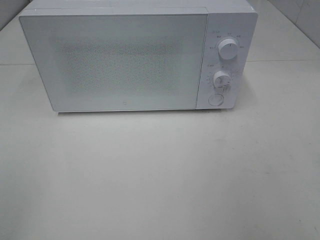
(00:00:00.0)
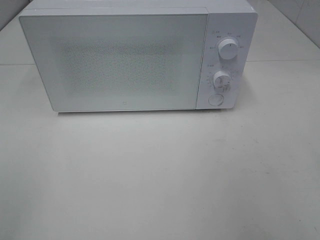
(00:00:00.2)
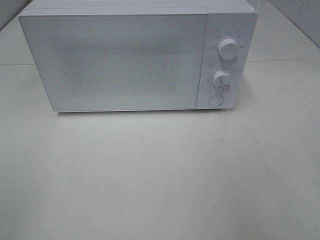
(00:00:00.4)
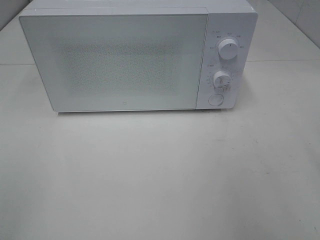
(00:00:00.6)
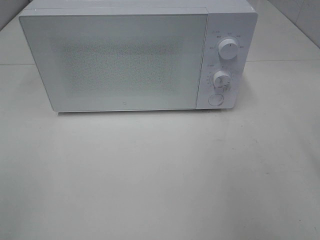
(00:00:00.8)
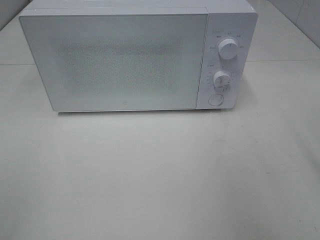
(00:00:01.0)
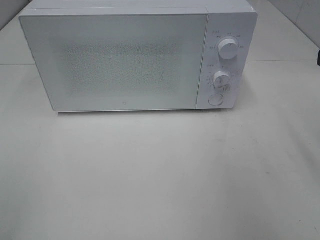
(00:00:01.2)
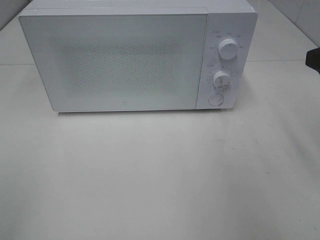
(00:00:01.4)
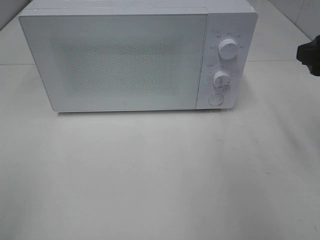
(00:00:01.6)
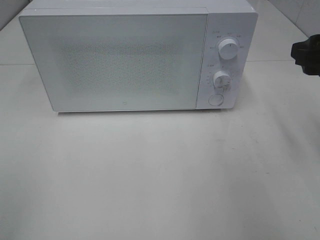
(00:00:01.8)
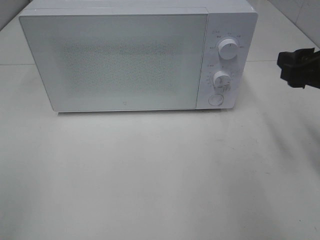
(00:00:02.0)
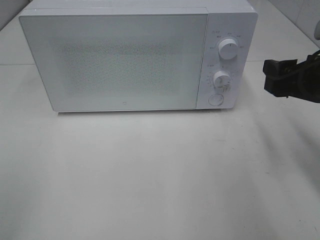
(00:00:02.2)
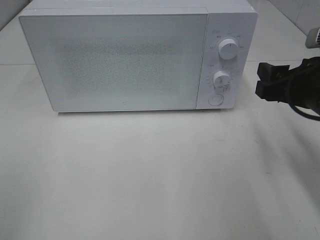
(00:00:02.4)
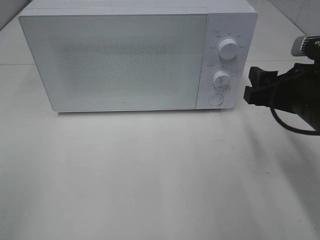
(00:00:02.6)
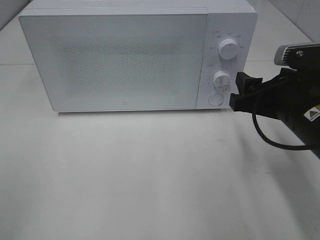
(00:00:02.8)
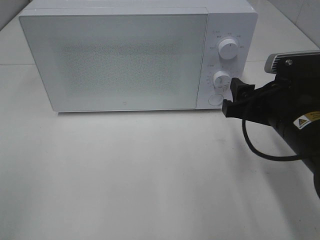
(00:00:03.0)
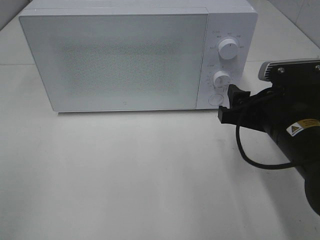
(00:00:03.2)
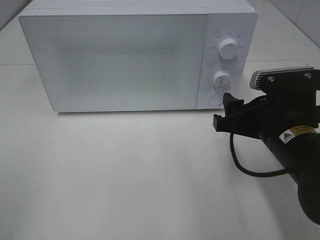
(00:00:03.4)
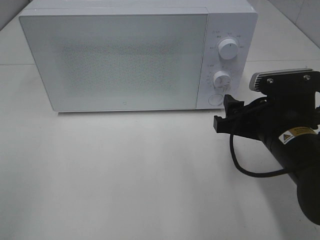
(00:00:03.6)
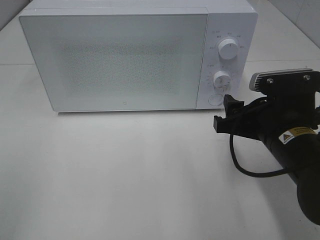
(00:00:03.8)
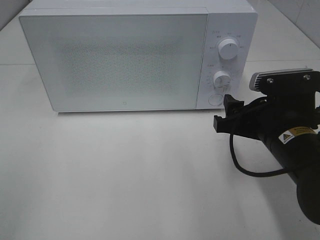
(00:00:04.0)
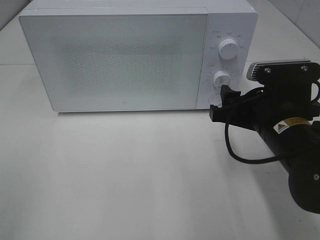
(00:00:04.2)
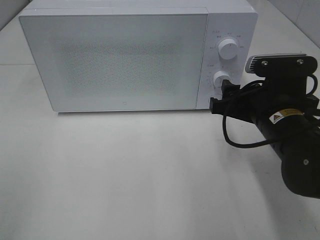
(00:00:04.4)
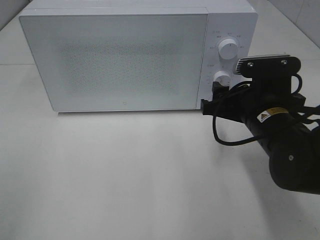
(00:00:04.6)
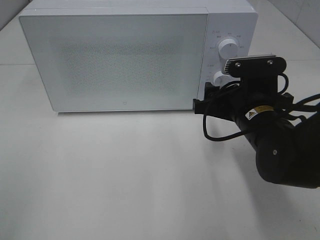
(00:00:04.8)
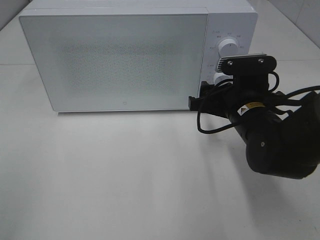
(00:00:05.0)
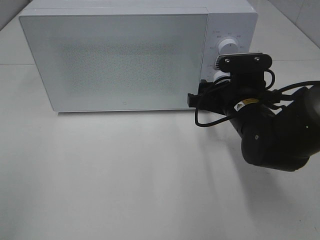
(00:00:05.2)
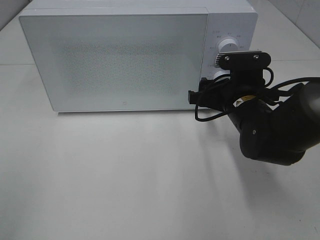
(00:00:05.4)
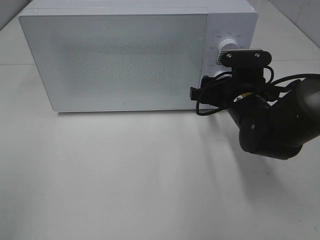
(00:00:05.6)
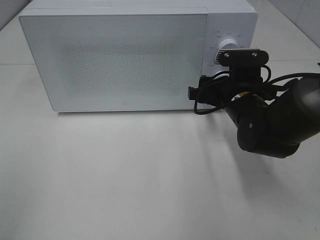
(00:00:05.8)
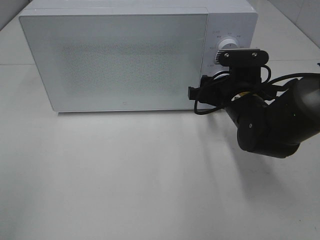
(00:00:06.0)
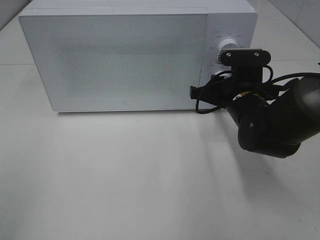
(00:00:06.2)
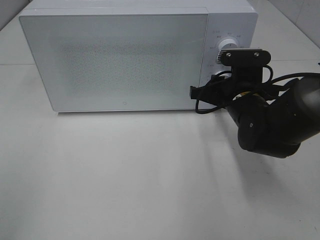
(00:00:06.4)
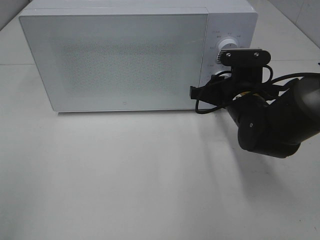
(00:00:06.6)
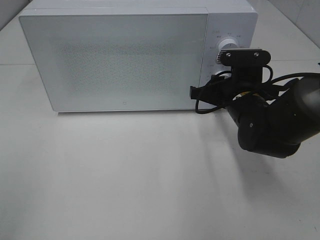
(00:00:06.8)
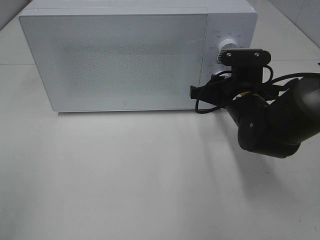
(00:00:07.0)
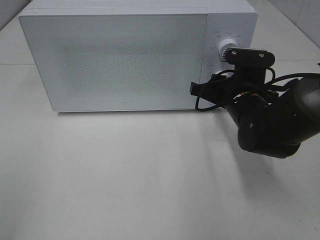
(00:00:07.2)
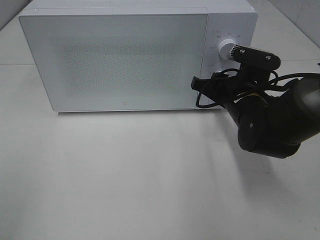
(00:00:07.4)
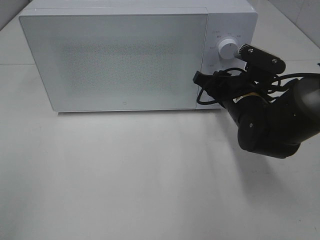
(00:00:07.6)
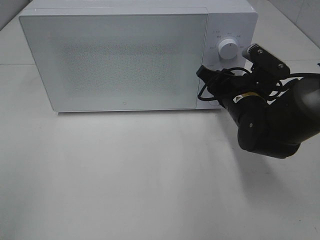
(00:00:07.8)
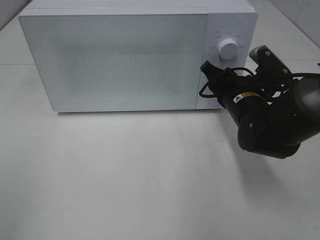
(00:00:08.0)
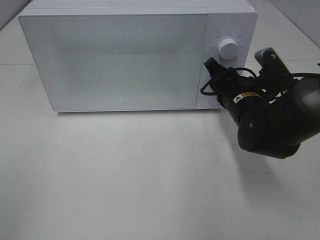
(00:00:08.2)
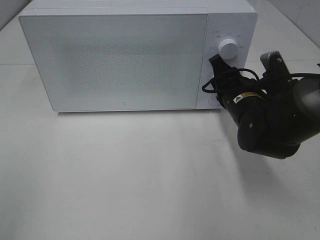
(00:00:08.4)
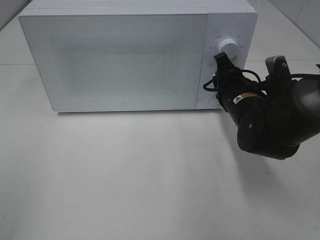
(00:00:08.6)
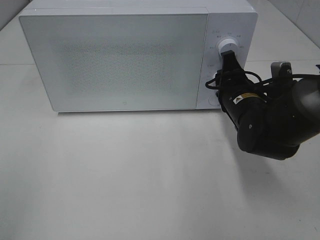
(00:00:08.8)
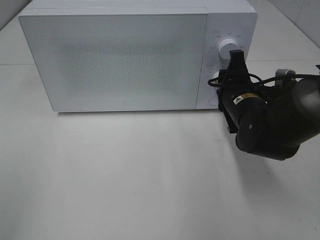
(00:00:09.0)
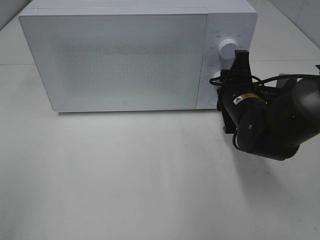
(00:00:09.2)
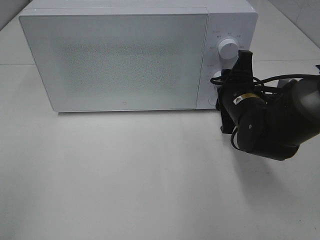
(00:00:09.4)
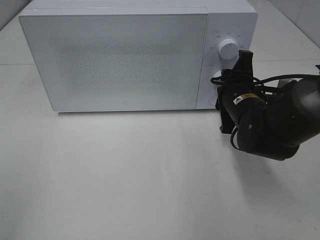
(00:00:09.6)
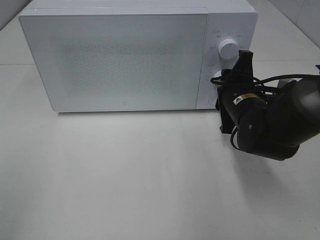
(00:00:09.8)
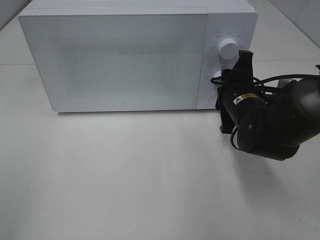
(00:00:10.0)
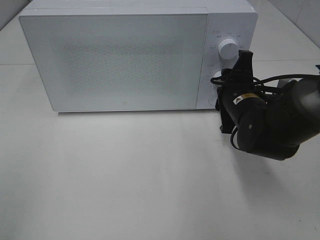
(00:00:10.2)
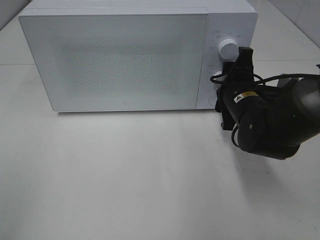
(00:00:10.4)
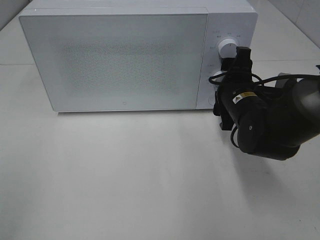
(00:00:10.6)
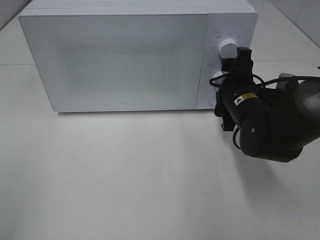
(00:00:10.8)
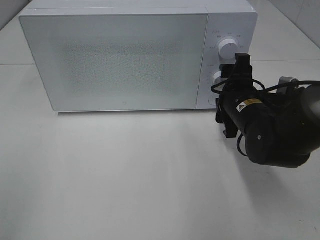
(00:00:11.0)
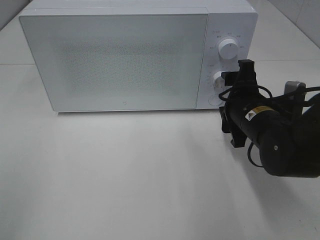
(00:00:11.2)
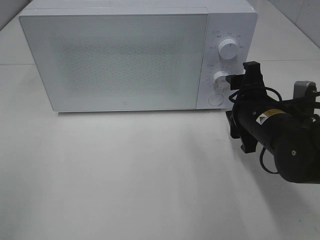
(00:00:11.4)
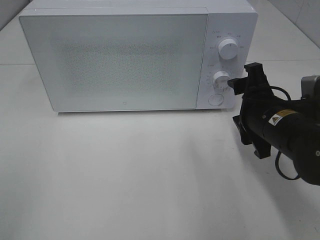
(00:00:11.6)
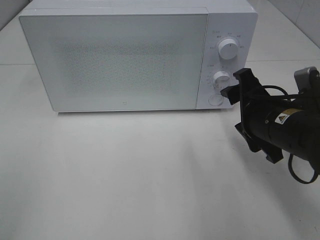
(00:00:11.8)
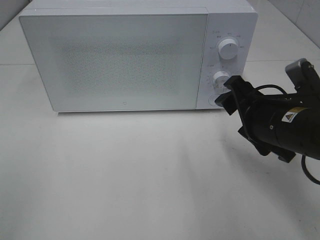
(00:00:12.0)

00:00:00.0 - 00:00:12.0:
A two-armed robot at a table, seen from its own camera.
Task of the whole recording: Heat Sandwich.
Step, 00:00:00.0 - 00:00:10.8: Right hand: twist timer button.
00:00:00.0 - 00:00:01.6: The right gripper moves forward, approximately 15 cm.
00:00:01.6 - 00:00:03.0: The right gripper moves downward and to the left, approximately 15 cm.
00:00:03.0 - 00:00:04.4: The grippers stay close to where they were, moving slightly.
00:00:04.4 - 00:00:06.0: The right gripper heads forward, covering approximately 10 cm.
00:00:09.0 - 00:00:10.4: The grippers move only a little.
00:00:10.4 - 00:00:12.0: The right gripper travels backward by about 10 cm.

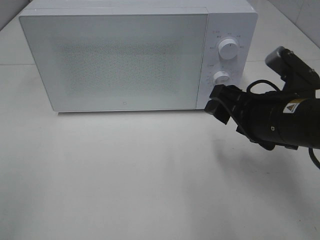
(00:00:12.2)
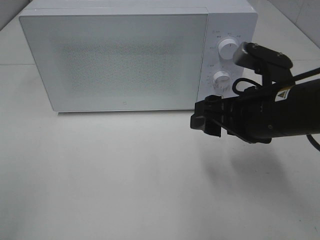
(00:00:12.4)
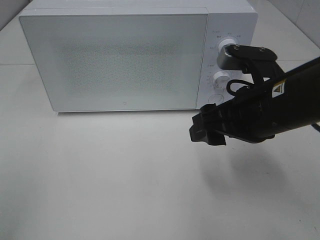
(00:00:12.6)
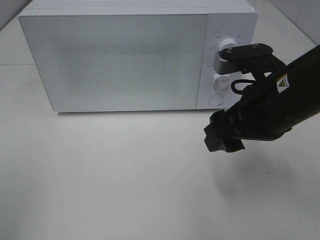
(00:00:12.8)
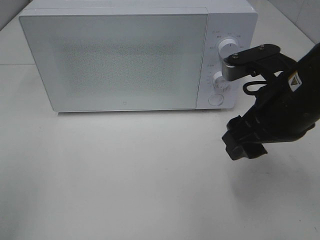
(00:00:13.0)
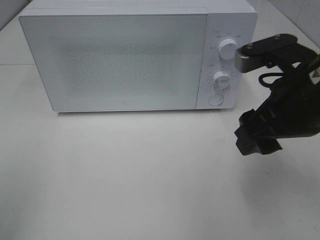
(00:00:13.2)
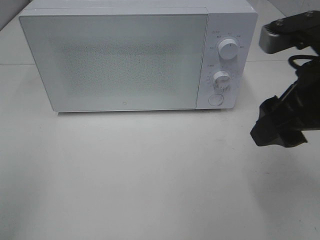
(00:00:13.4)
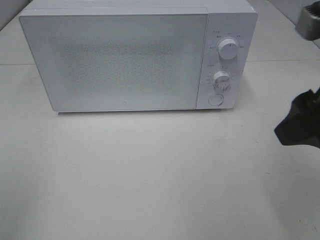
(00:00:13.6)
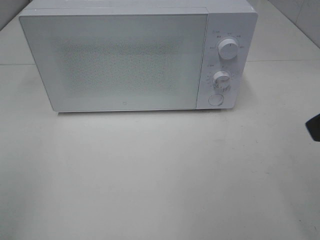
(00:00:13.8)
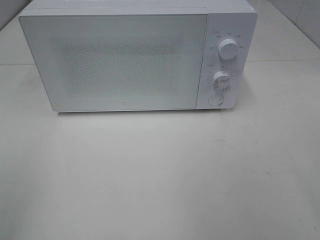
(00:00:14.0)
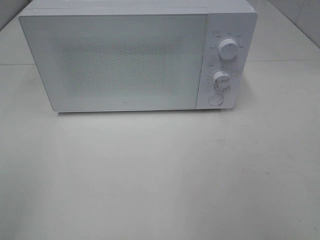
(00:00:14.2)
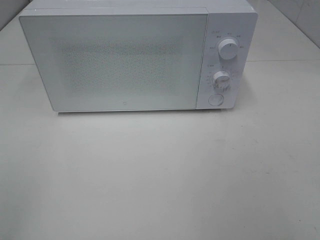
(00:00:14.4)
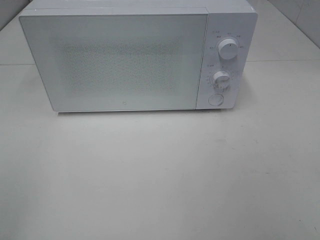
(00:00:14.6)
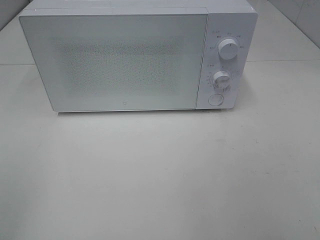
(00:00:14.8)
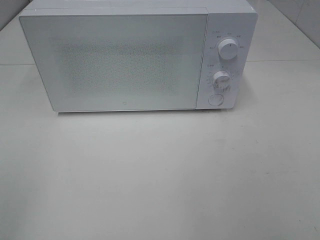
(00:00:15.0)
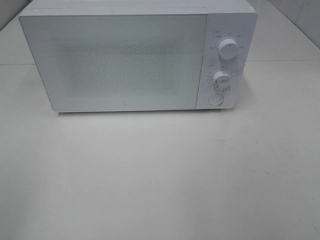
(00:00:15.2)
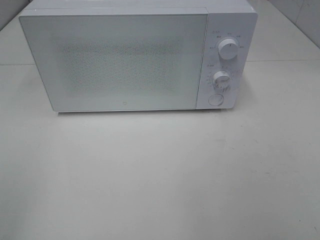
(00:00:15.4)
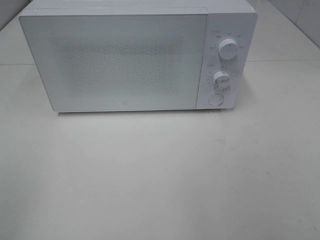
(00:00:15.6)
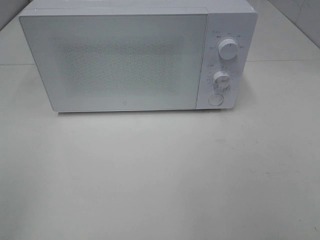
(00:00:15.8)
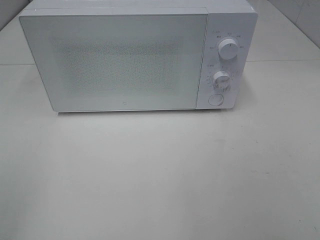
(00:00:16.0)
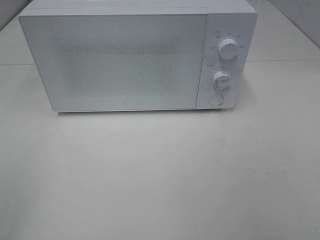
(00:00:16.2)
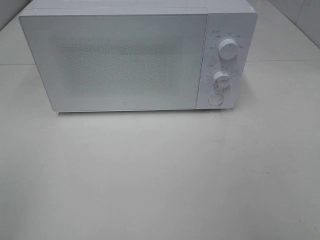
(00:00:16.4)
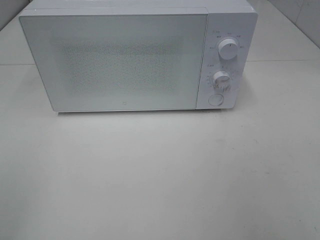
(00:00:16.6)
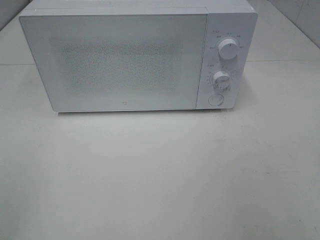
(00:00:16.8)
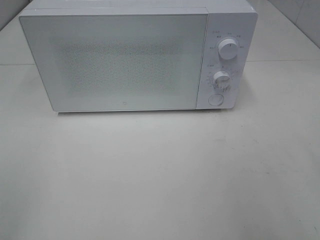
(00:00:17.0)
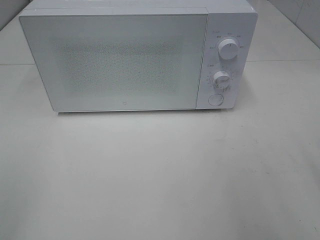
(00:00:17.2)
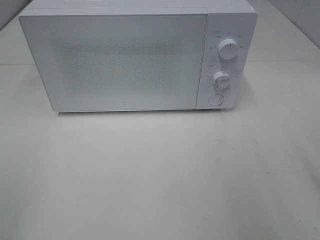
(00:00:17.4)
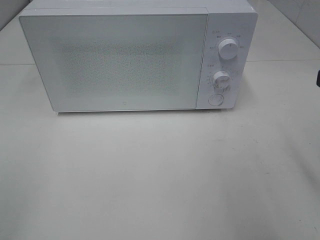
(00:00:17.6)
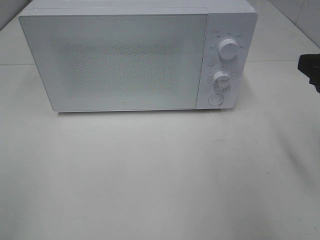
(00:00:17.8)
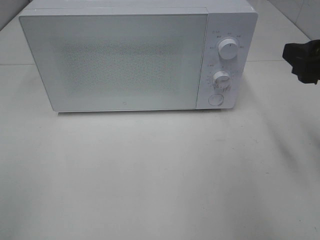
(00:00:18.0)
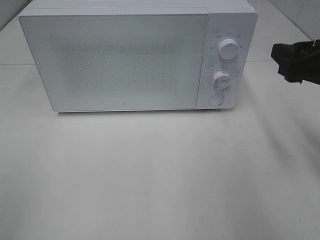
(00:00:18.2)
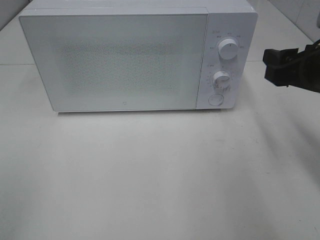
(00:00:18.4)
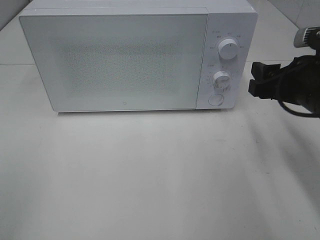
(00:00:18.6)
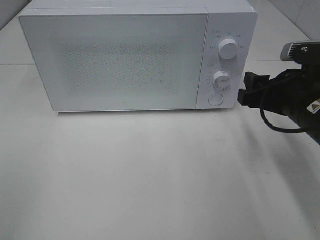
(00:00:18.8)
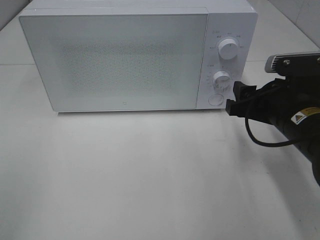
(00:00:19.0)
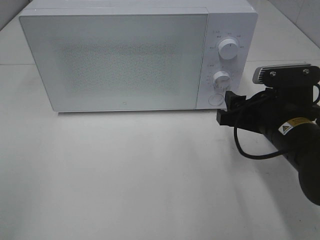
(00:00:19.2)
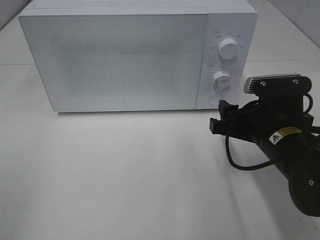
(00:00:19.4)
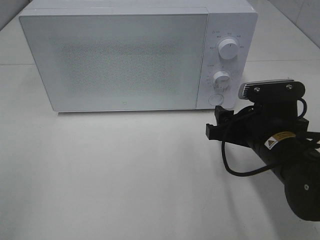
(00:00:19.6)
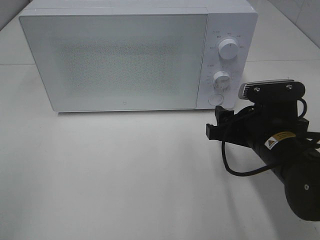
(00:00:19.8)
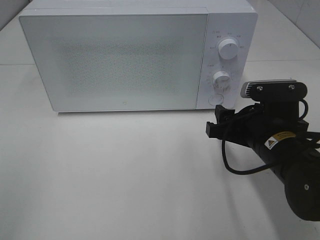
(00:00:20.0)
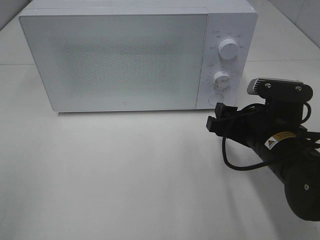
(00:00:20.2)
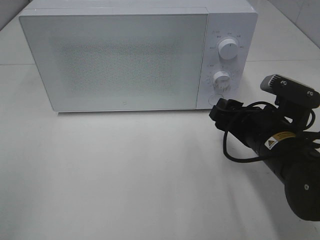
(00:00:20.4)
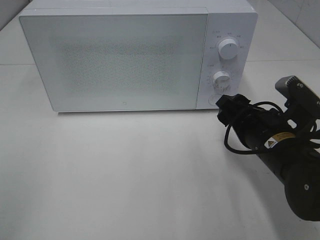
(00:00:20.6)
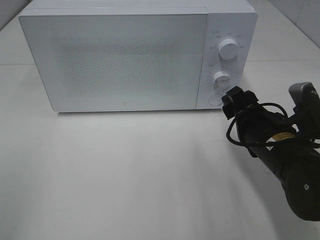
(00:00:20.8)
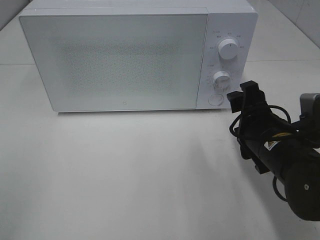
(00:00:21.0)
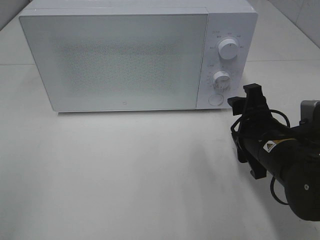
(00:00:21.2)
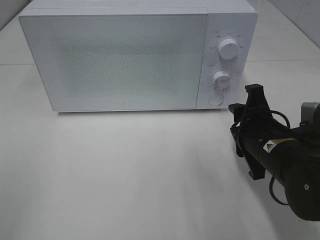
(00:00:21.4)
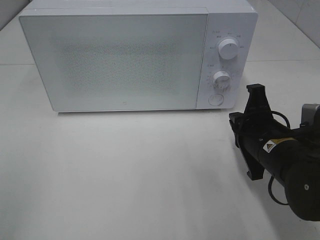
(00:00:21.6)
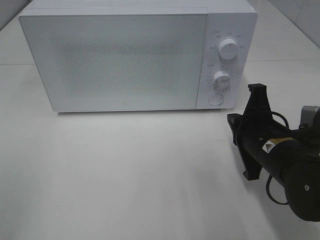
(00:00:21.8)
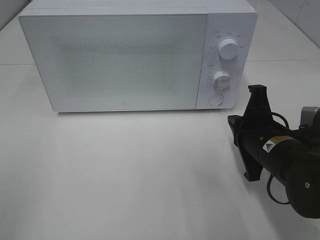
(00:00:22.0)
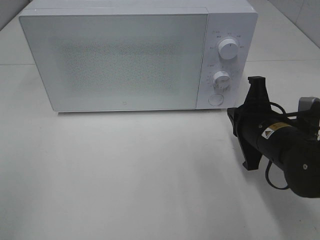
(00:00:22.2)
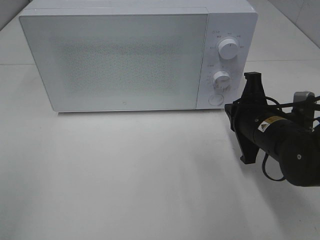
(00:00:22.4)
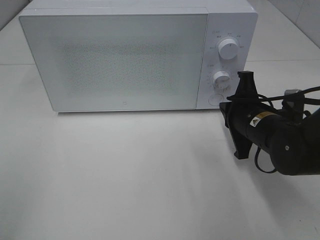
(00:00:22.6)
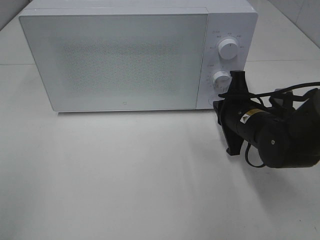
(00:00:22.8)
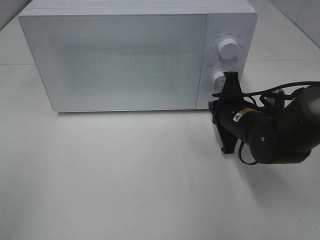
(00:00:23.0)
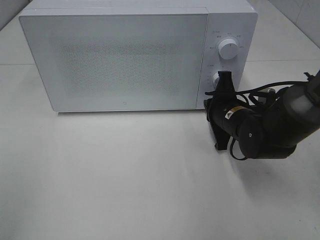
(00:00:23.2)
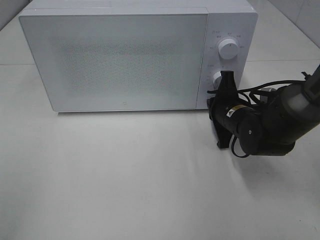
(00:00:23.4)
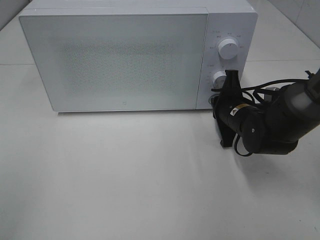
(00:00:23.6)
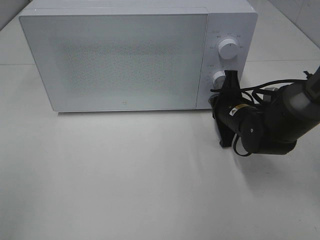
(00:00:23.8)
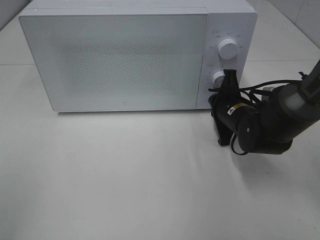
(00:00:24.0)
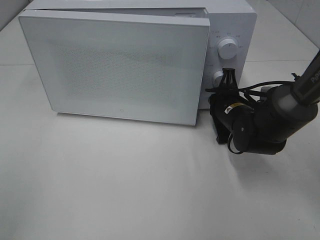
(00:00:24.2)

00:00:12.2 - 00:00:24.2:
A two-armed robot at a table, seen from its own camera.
Task of the whole recording: Heat Sandwich.
00:00:12.2 - 00:00:13.8: The right gripper shifts some 15 cm upward and backward.
00:00:16.6 - 00:00:18.2: The right gripper is displaced forward by some 15 cm.
00:00:18.2 - 00:00:19.8: The right gripper is displaced downward and to the left by some 15 cm.
00:00:21.2 - 00:00:22.6: The right gripper heads forward, covering approximately 5 cm, and closes.
00:00:22.6 - 00:00:24.2: The right gripper moves forward, roughly 5 cm.
